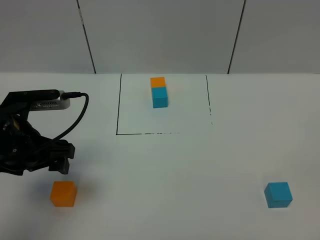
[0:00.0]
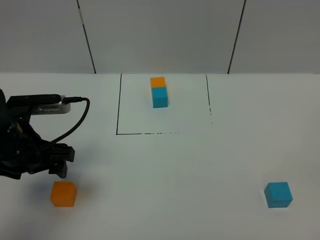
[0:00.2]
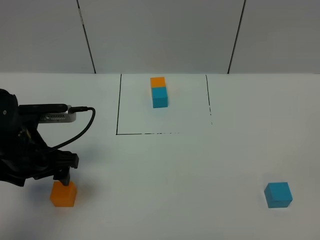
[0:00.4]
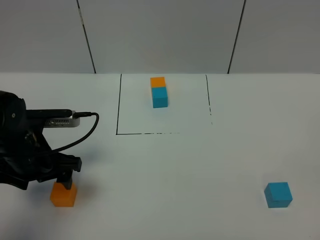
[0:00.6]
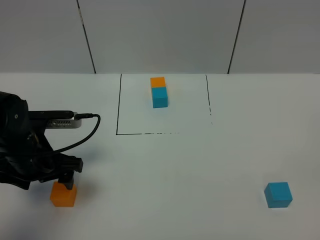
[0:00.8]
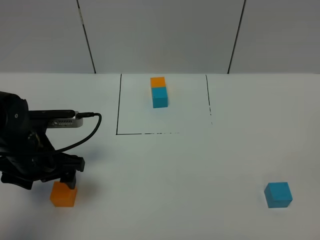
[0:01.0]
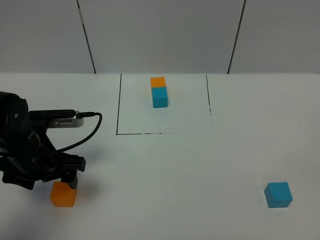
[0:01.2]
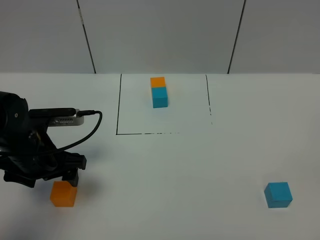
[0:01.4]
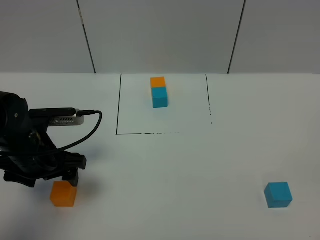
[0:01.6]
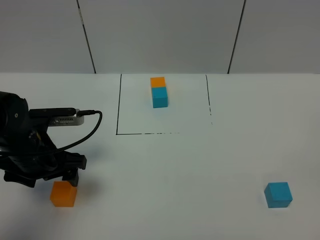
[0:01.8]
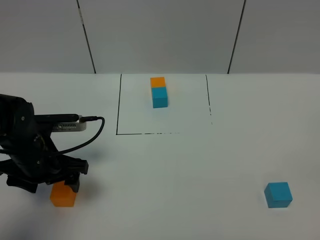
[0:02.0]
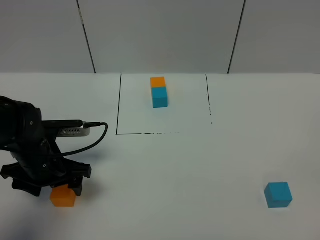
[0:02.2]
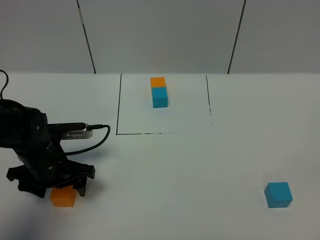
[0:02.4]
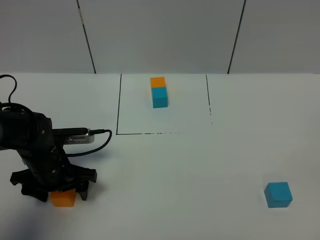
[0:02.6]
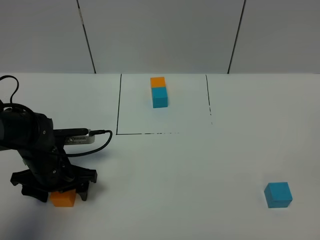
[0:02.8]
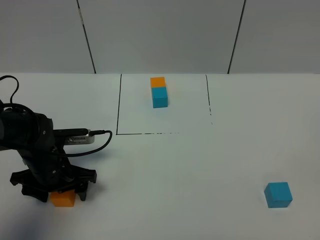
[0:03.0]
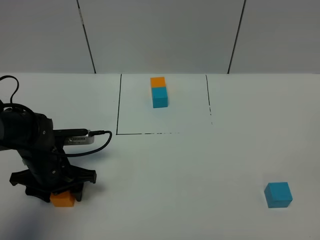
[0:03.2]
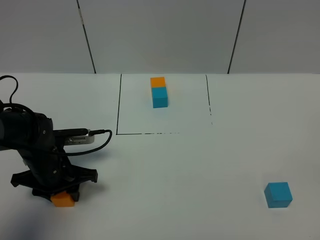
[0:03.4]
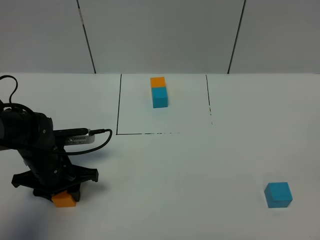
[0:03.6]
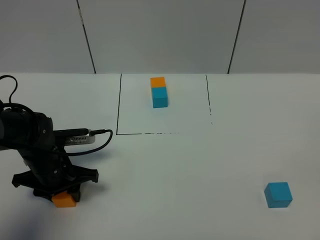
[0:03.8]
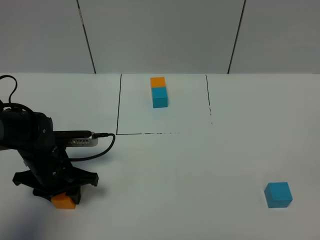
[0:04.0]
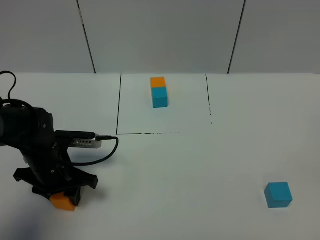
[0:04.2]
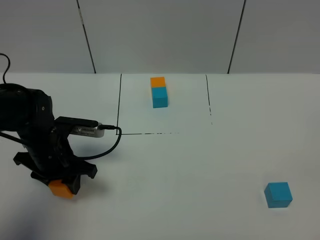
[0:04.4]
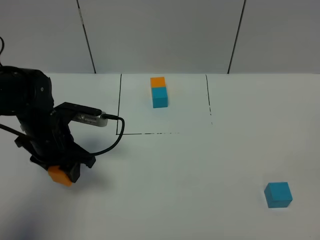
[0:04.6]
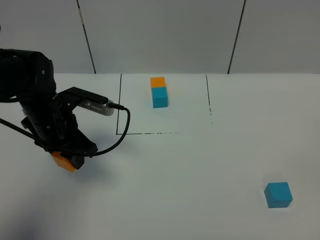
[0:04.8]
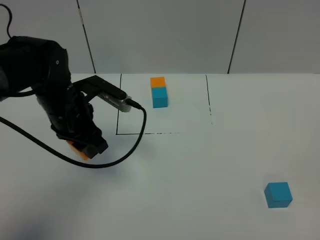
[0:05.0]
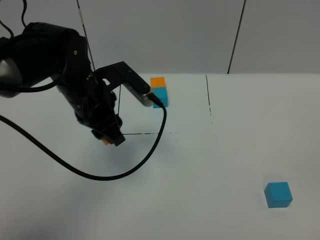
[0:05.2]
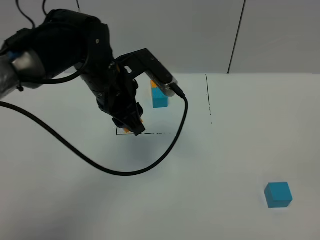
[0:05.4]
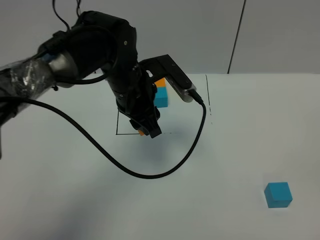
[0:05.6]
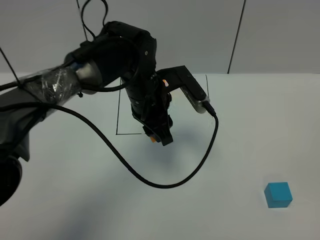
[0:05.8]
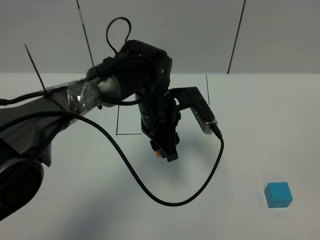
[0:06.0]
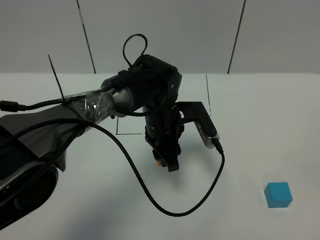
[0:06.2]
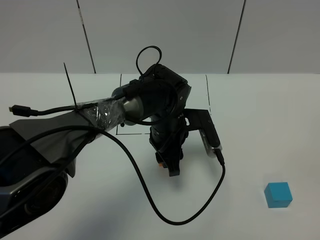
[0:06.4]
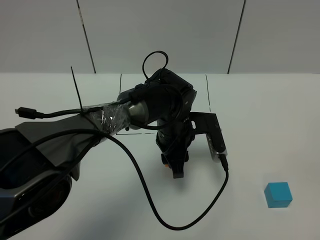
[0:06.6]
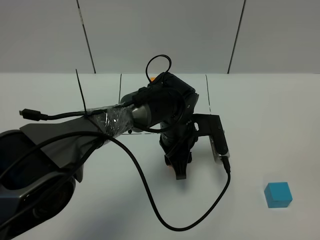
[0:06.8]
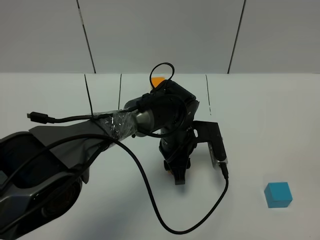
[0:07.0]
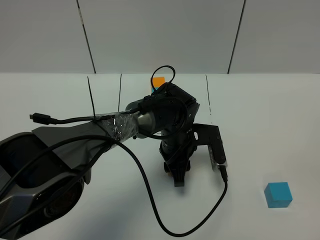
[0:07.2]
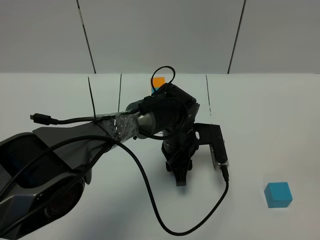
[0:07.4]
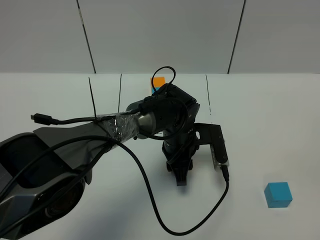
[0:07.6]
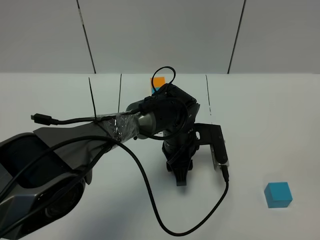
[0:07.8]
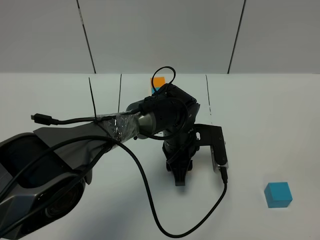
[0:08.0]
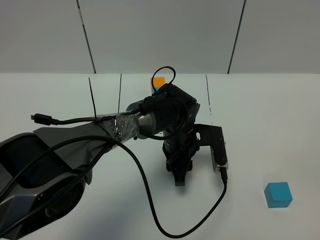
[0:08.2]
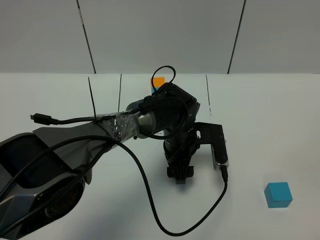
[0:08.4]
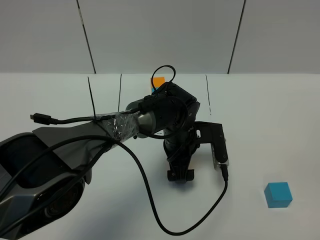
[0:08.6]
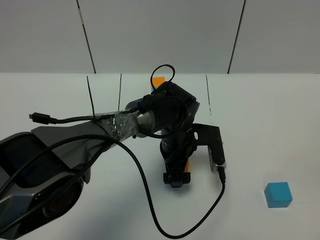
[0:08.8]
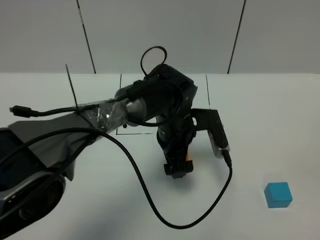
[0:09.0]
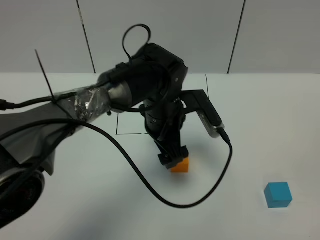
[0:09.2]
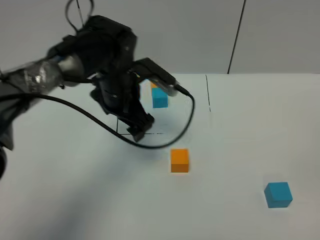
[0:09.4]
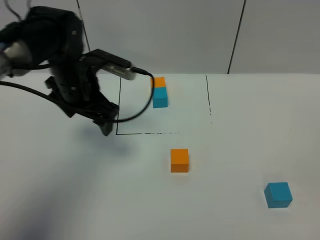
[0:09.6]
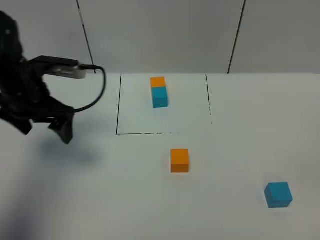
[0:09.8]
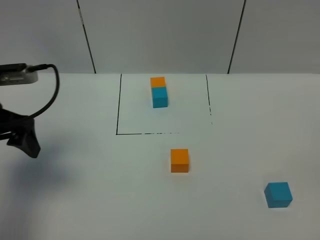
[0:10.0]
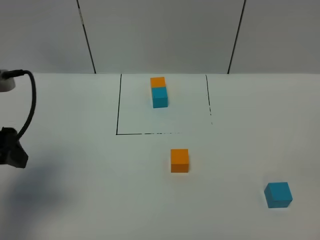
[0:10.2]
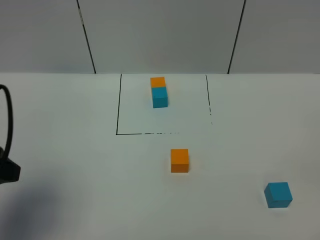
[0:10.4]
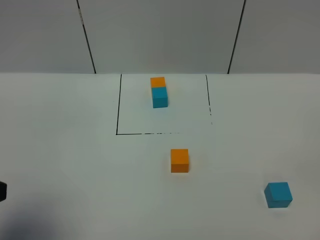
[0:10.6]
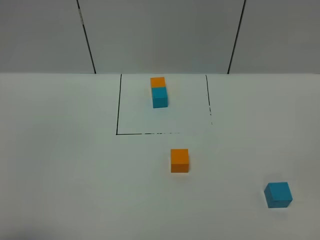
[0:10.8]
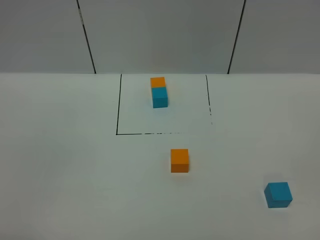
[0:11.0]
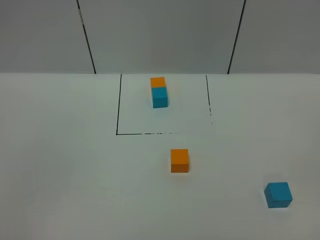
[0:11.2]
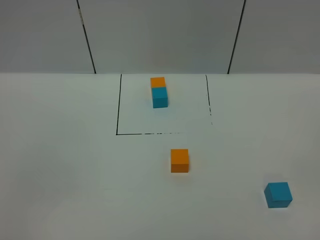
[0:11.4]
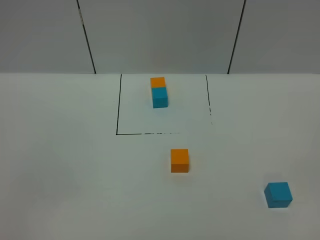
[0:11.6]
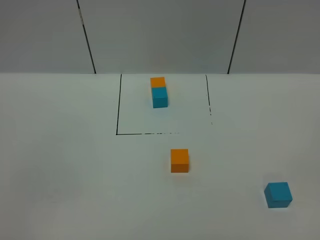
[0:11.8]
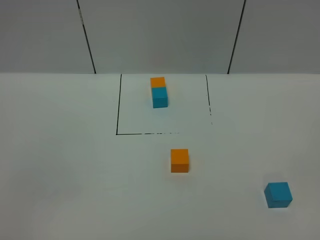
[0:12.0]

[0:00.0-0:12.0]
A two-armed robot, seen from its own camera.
Task of the whole recording: According to the building block template in front, assemble the scattered blocks together.
Step, 0:00.0 to 0:09.0: Put the orange cube in the center of the table.
0:00.0 to 0:01.6: The left gripper is displaced downward by about 5 cm.
0:01.6 to 0:03.0: The left gripper moves downward, approximately 5 cm.
0:03.0 to 0:04.4: The left gripper closes its fingers.
0:04.4 to 0:06.0: The left gripper travels to the right by approximately 20 cm.
0:06.0 to 0:07.6: The left gripper is displaced downward by some 5 cm.
0:07.6 to 0:09.0: The left gripper heads upward, covering approximately 5 cm, and opens up.
0:09.0 to 0:10.4: The left gripper shifts approximately 40 cm to the left, backward and upward.
0:10.4 to 0:12.0: The left gripper moves backward, approximately 20 cm.

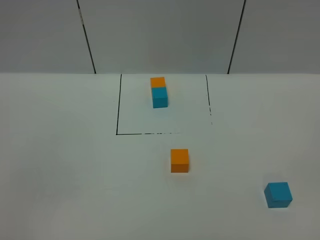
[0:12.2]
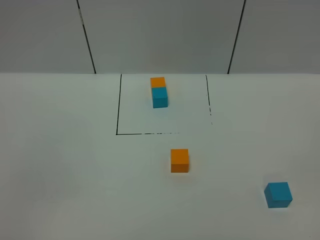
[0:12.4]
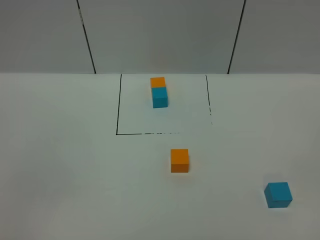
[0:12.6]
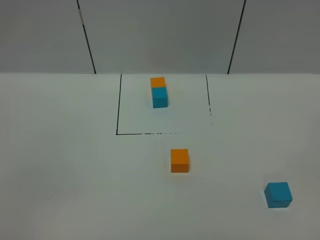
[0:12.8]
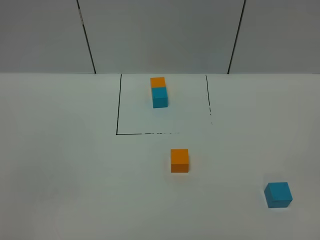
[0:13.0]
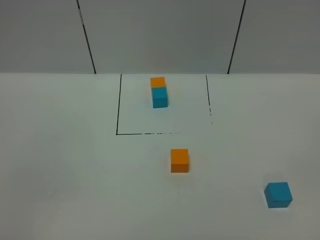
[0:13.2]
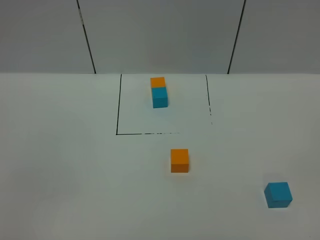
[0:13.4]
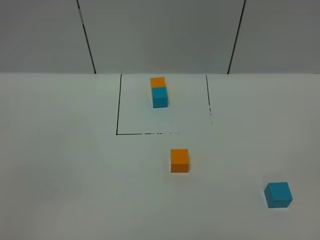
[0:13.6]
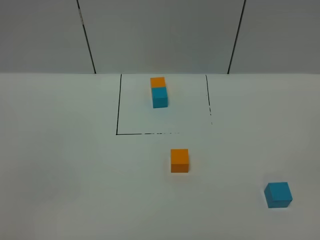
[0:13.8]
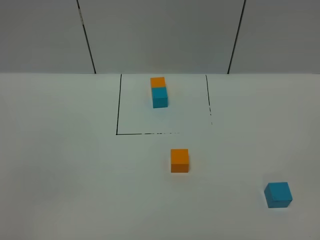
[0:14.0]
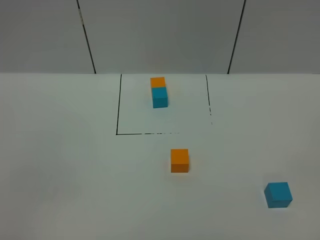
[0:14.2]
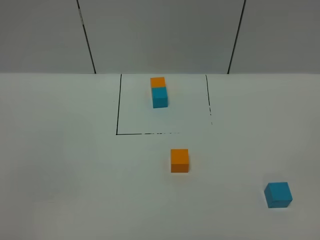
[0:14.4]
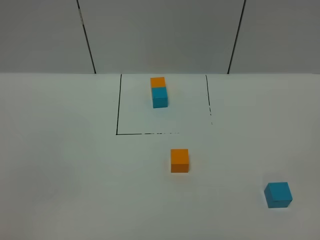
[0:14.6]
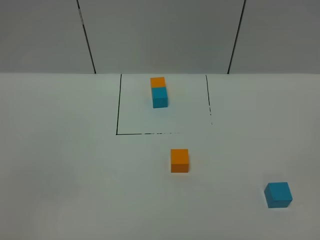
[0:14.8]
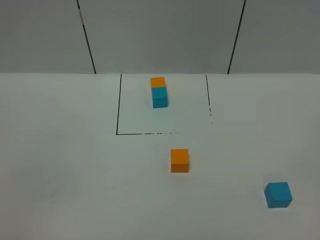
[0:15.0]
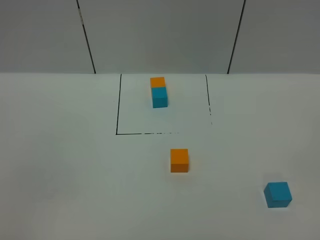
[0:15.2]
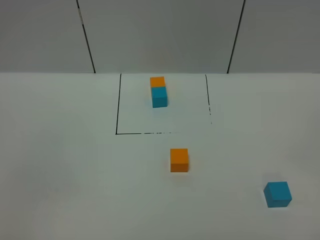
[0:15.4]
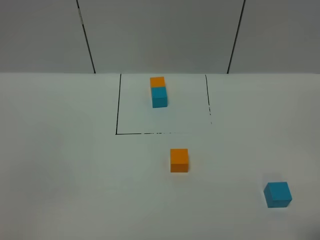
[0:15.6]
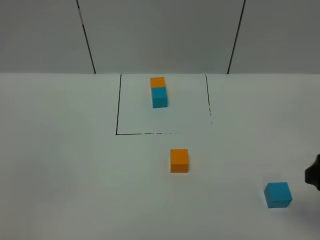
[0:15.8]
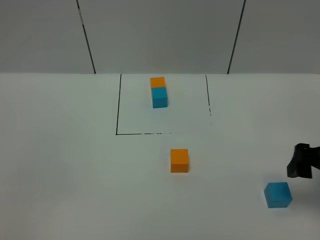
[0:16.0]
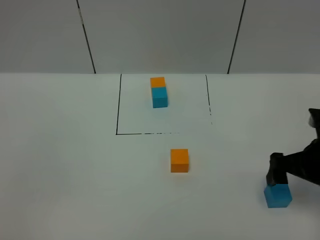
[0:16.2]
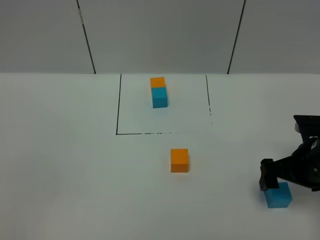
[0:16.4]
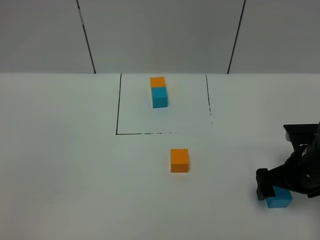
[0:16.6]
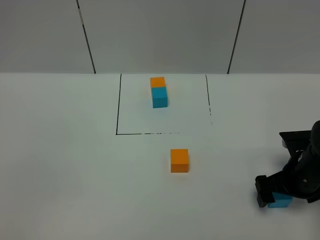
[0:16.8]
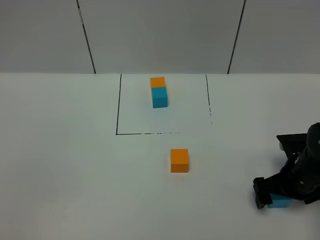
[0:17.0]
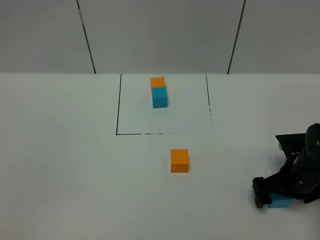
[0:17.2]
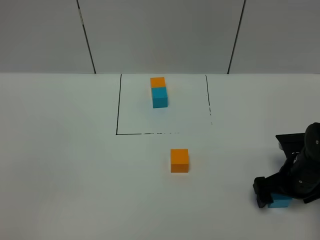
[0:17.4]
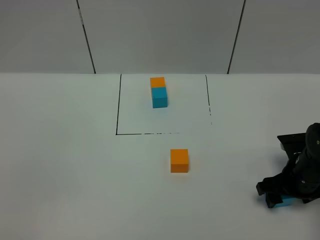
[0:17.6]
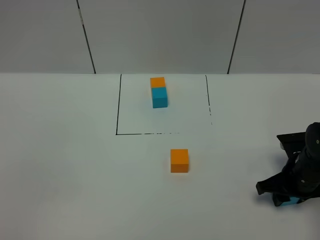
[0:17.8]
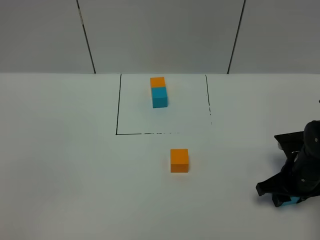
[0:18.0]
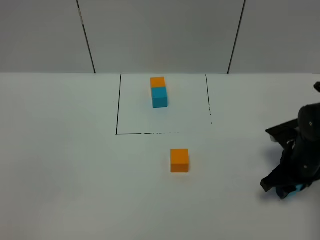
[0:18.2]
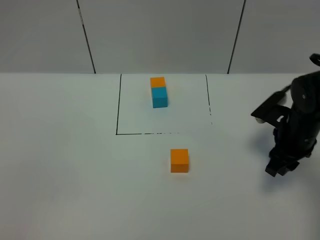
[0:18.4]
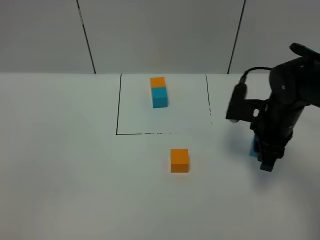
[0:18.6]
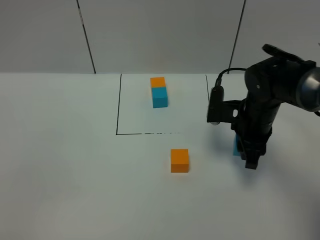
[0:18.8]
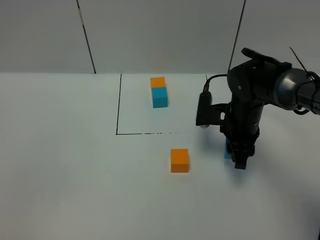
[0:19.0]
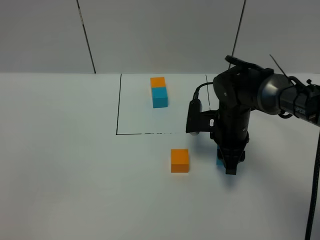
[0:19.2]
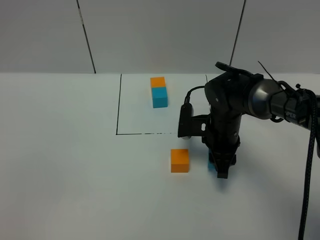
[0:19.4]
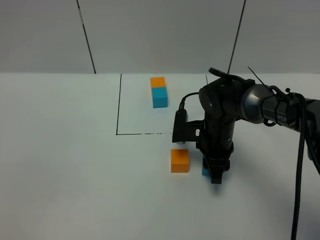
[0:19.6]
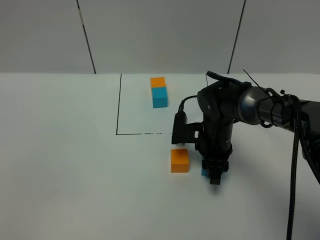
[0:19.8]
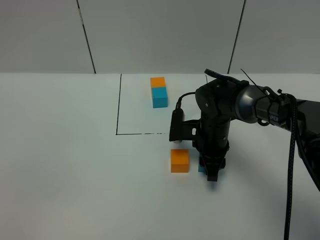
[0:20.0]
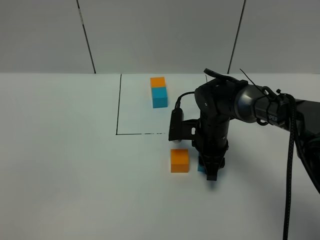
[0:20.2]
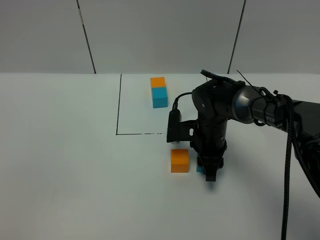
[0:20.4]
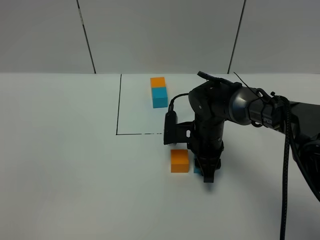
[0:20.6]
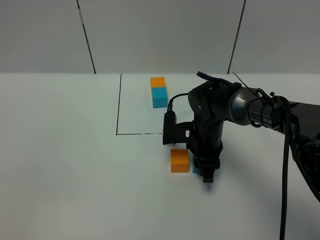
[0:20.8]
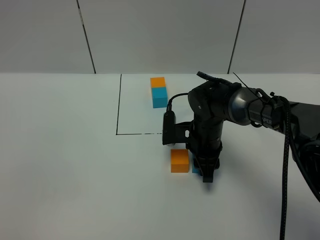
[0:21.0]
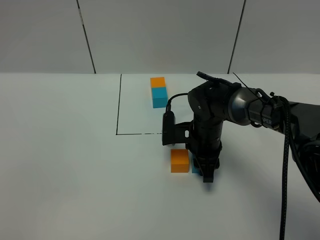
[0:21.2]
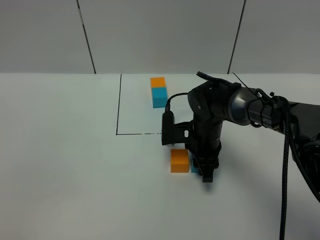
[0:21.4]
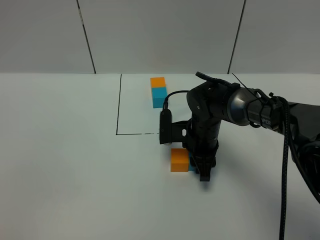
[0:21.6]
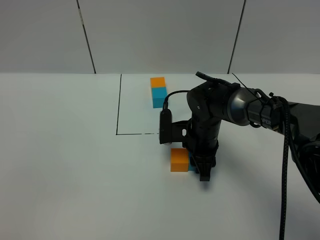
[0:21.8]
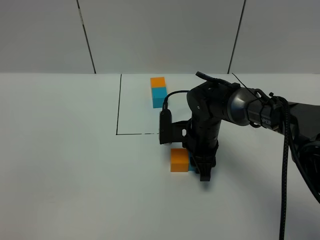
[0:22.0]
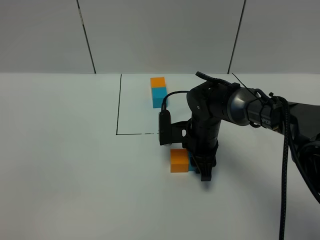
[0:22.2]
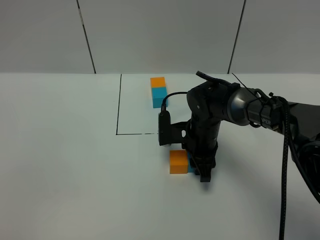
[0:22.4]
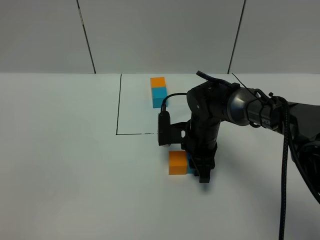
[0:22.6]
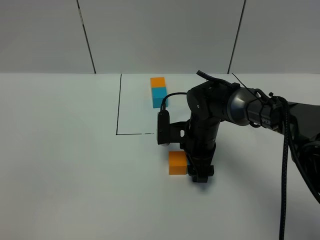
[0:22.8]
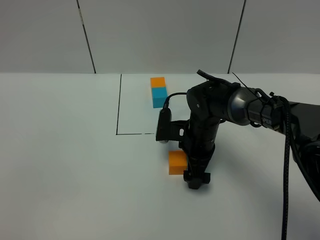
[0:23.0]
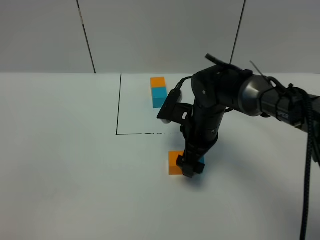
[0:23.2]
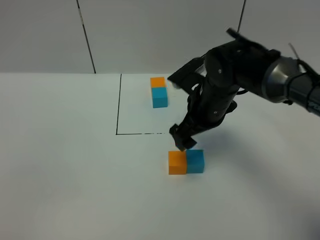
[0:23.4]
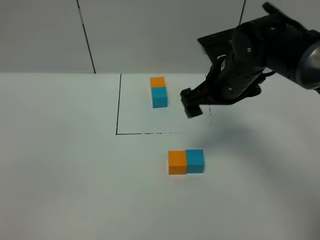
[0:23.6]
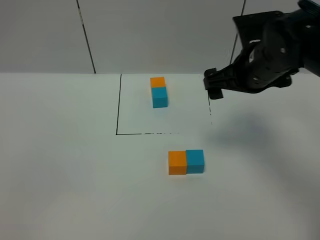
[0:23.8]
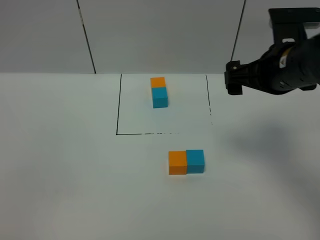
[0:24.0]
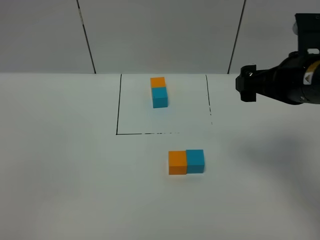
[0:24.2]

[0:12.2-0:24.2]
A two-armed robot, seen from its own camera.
Task of the whole recording: According to the building block template in front, assemble the scattered blocks together.
Step, 0:12.2 to 0:23.0: Put the blue cube on the right of the orange cube.
0:12.2 to 0:15.2: Neither gripper changes place.
0:15.2 to 0:16.6: The right gripper goes roughly 30 cm forward and downward.
0:16.6 to 0:18.2: The right gripper closes up.
0:18.2 to 0:19.8: The right gripper goes some 15 cm to the left.
0:19.8 to 0:21.2: The grippers stay close to where they were, moving slightly.
0:21.2 to 0:22.6: Both grippers stay about where they are.
0:22.6 to 0:24.2: The right gripper is displaced upward, to the right and backward by some 25 cm, and opens up.
